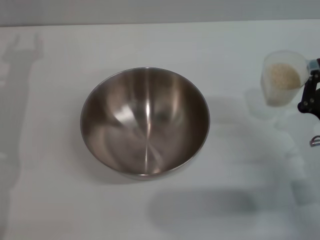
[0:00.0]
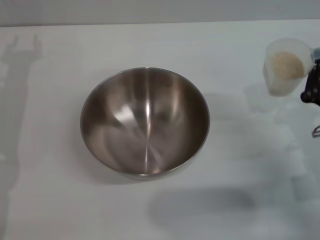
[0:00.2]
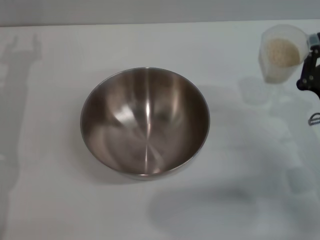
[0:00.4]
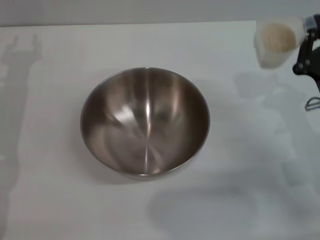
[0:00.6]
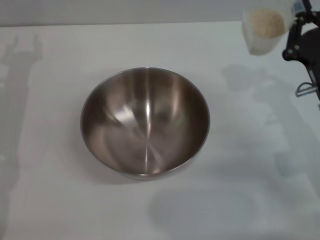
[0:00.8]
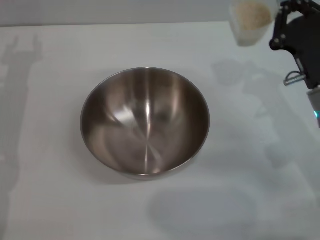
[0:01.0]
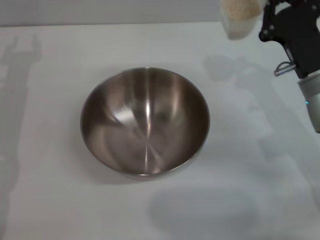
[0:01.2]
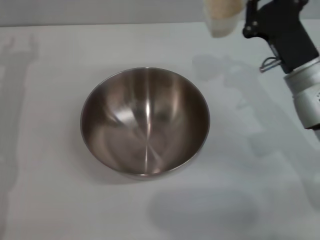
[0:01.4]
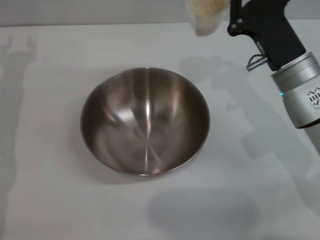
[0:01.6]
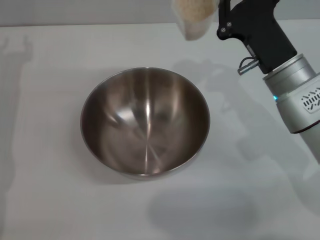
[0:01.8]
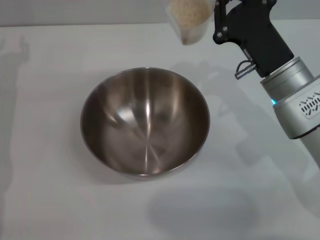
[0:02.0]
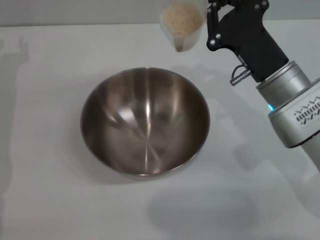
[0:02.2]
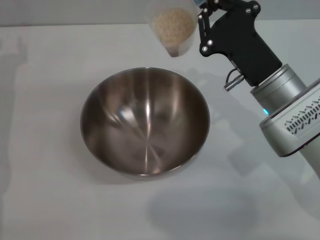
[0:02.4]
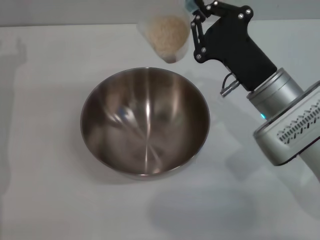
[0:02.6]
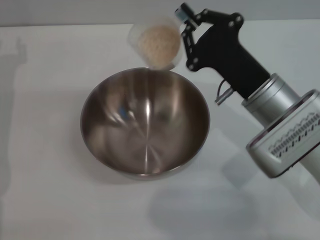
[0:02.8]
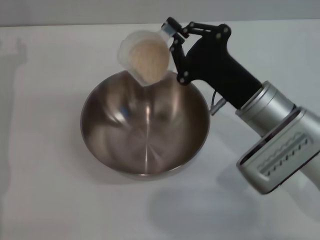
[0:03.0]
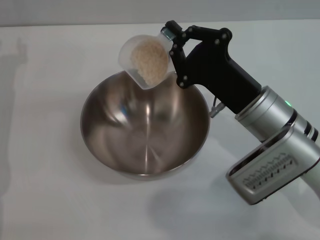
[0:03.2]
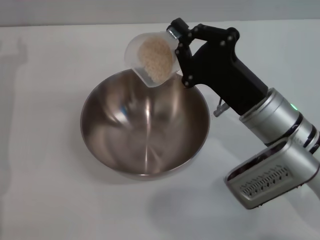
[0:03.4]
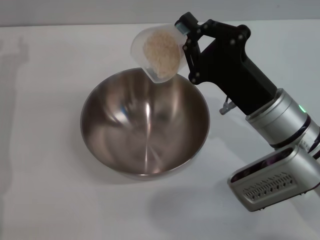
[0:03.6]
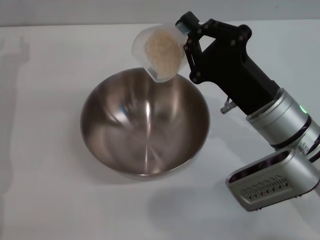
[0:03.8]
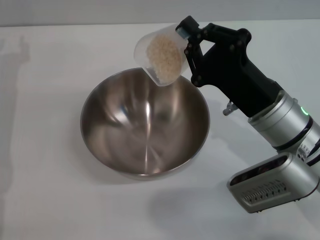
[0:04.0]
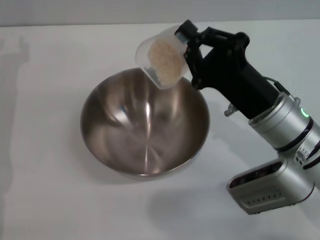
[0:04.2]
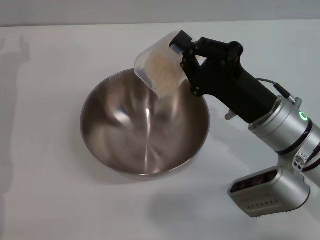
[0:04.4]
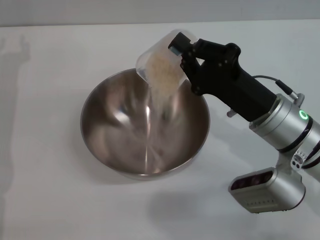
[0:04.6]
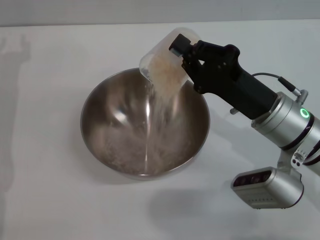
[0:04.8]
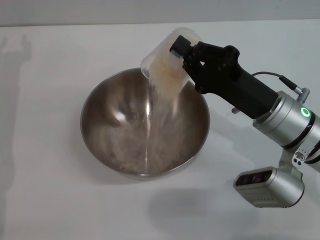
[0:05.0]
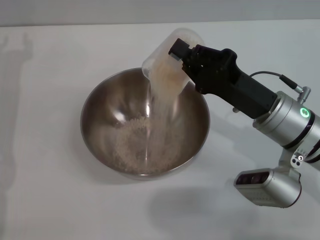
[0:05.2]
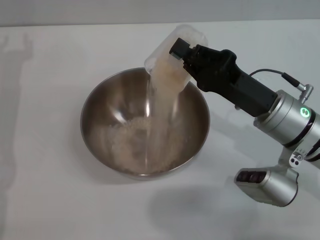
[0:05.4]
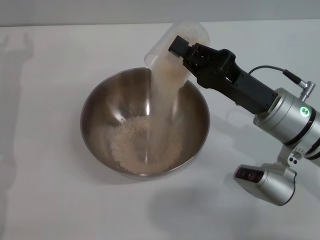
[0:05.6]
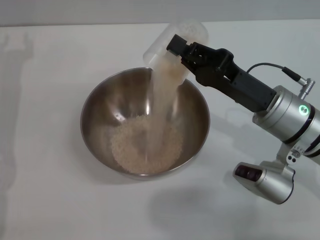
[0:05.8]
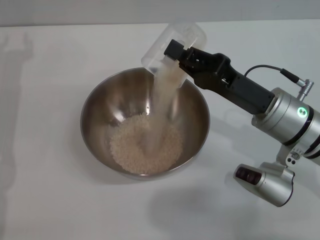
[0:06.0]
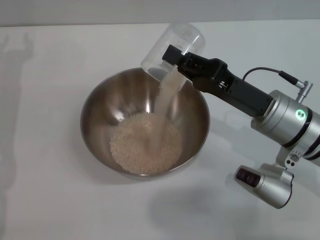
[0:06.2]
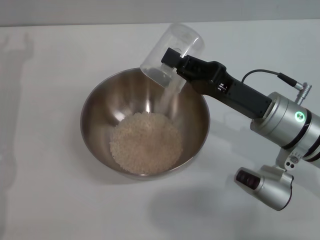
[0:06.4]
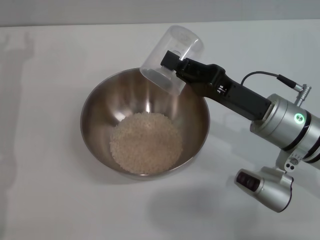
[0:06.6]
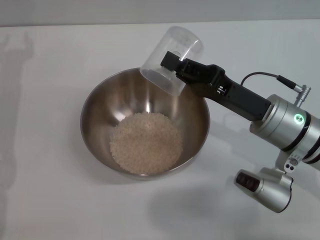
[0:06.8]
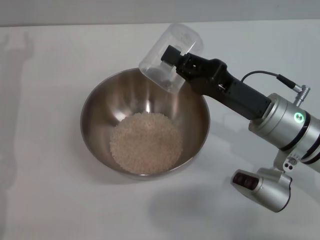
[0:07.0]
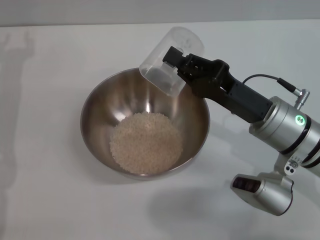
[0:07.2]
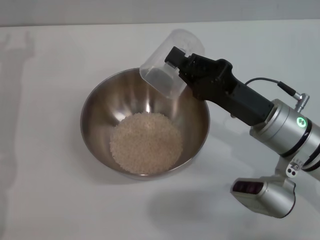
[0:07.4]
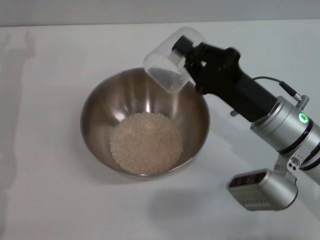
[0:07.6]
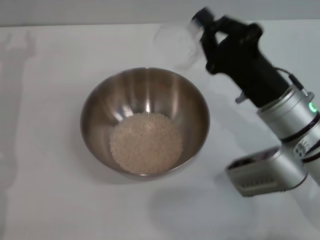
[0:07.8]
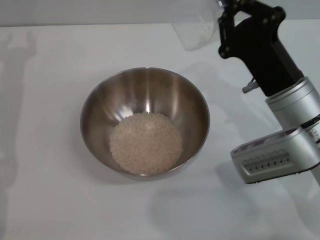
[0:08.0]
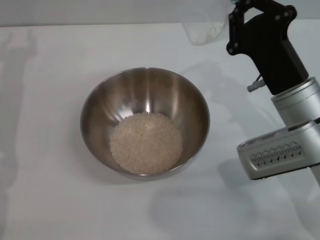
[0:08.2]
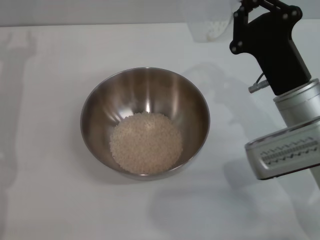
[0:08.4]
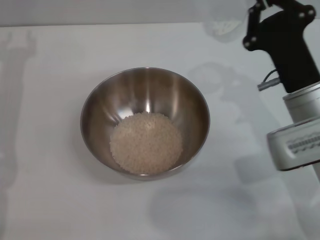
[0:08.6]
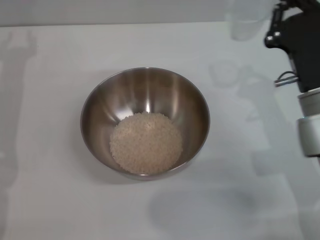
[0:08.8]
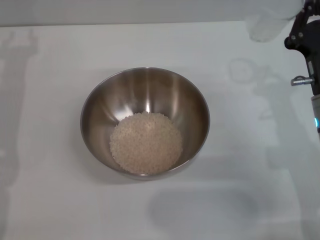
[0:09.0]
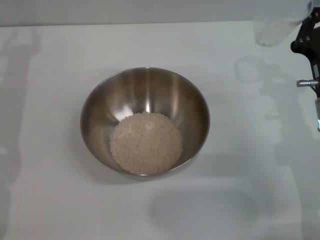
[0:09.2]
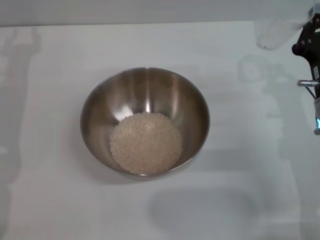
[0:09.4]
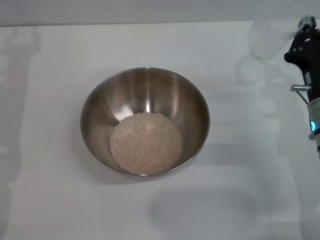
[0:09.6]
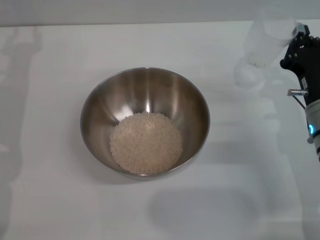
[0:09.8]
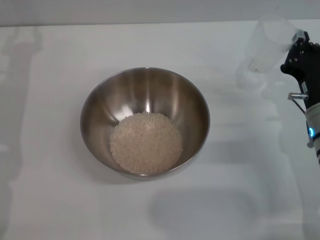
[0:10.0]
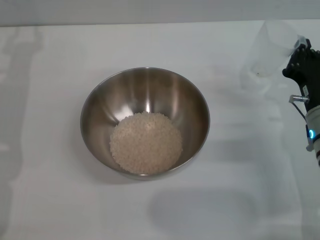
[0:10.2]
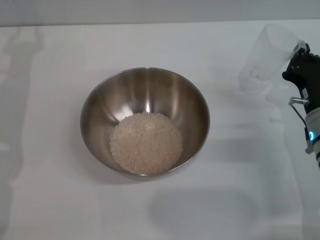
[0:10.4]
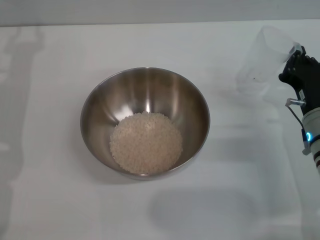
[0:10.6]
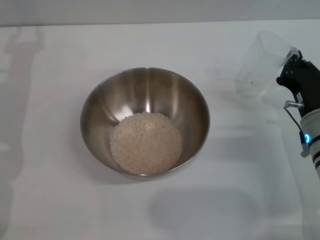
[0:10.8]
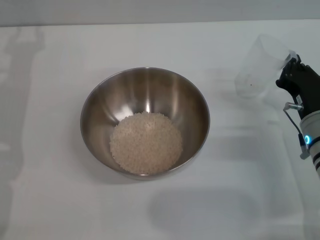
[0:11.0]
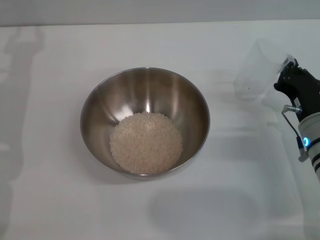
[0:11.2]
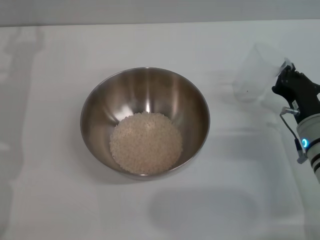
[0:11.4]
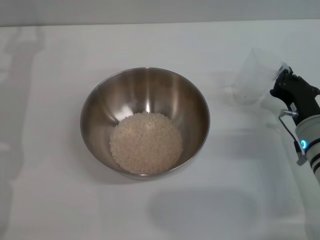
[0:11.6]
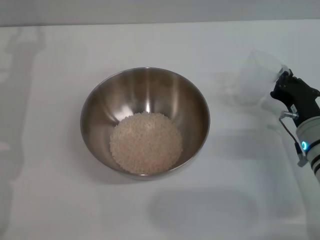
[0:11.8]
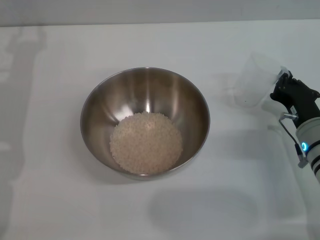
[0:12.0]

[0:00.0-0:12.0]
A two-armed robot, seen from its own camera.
Task of the whole recording: Place the bowl in the middle of the table with one hand and pour the rice from the grain cup into it with the other hand.
Step, 0:00.6 to 0:06.6: Pour the rice from the cup into the bowl with the right gripper.
0:00.0 to 0:01.6: The right gripper travels forward, to the left and upward by some 15 cm.
0:01.6 to 0:03.0: The right gripper ends up some 5 cm from where it was.
0:07.6 to 0:09.0: The right gripper is displaced to the right by some 5 cm.
0:10.4 to 0:12.0: The grippers move only a little.

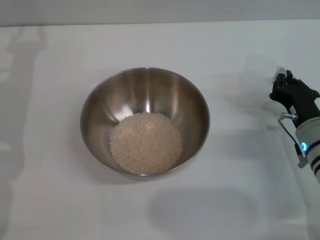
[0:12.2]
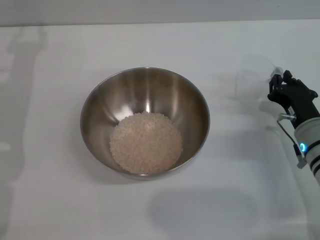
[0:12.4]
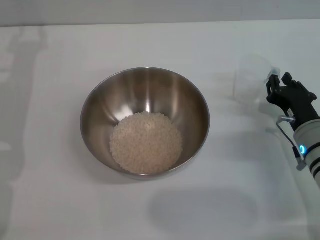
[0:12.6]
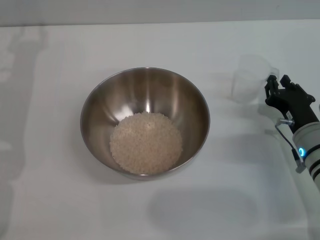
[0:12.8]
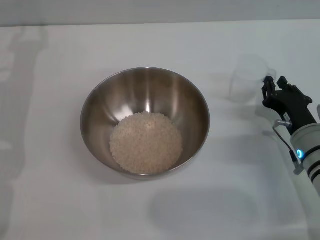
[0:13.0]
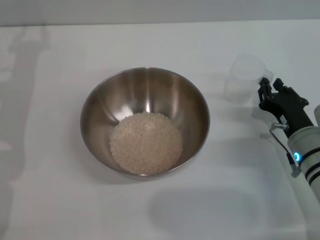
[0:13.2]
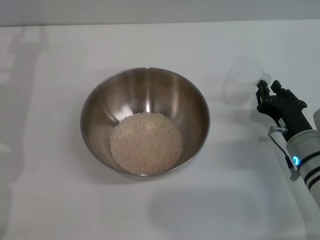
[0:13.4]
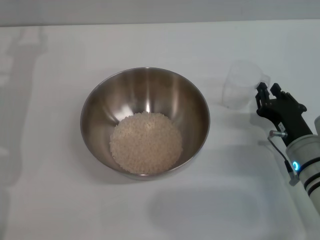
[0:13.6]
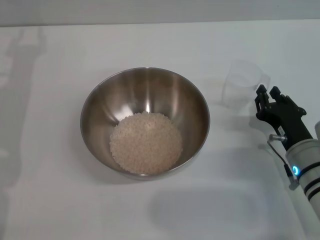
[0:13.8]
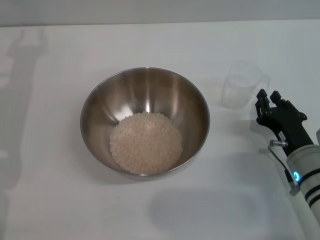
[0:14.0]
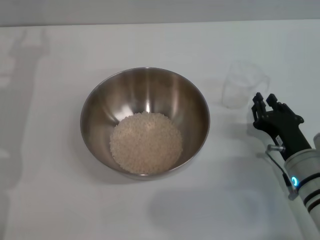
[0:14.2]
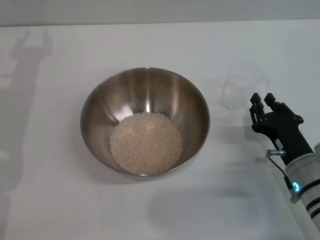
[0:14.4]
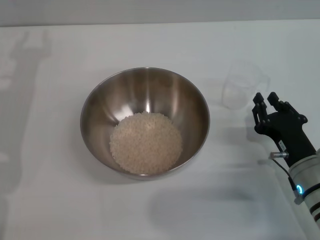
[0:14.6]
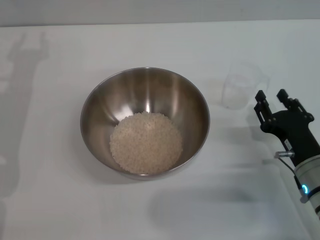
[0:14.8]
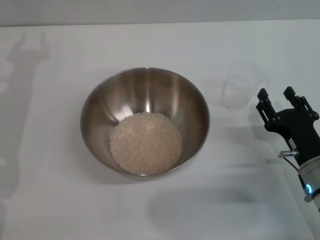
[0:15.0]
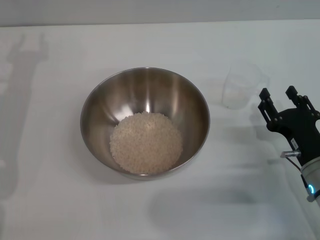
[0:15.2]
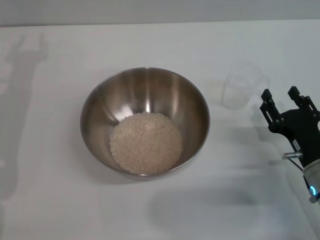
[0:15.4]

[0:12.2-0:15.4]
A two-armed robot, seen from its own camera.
Task of the whole recording: Place the bowl in the middle of the table with one hand and pour the rice from the grain cup into it with the other hand.
Step, 0:12.2 to 0:14.4: Place the cup on the table with the right gripper.
0:12.2 to 0:13.8: The right gripper opens its fingers.
0:13.8 to 0:15.4: The right gripper opens its fingers.
